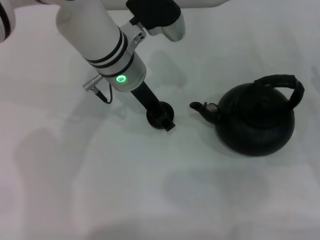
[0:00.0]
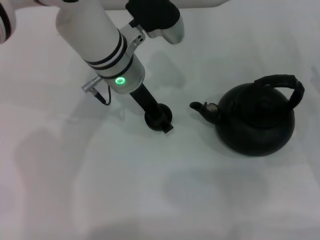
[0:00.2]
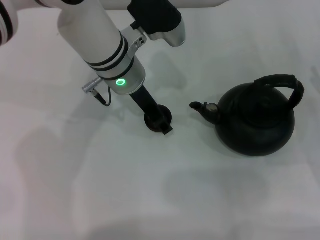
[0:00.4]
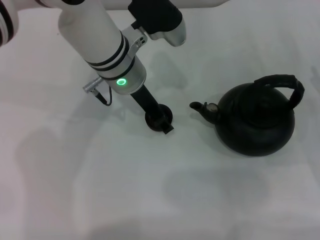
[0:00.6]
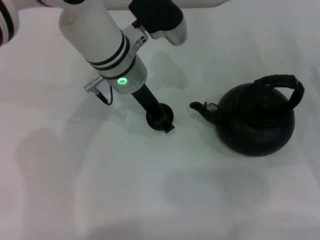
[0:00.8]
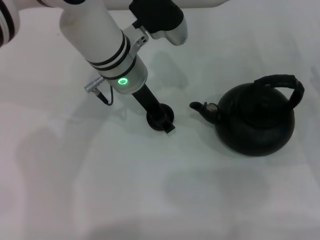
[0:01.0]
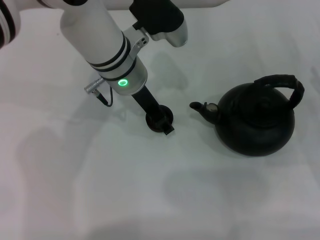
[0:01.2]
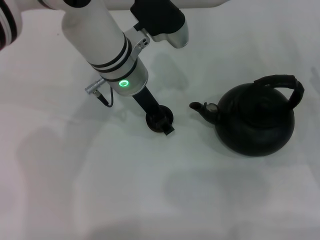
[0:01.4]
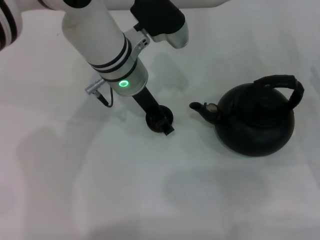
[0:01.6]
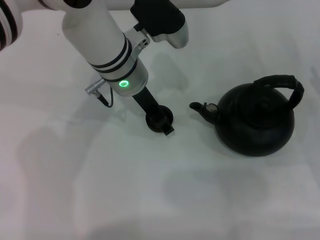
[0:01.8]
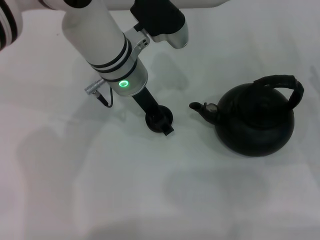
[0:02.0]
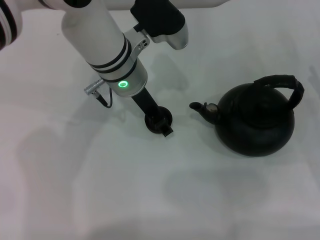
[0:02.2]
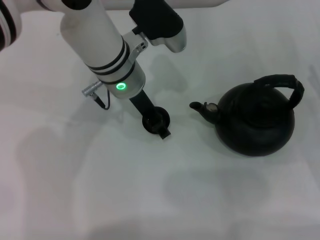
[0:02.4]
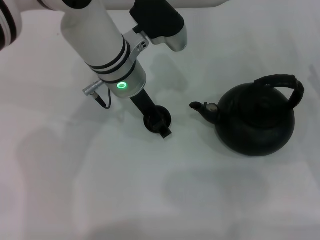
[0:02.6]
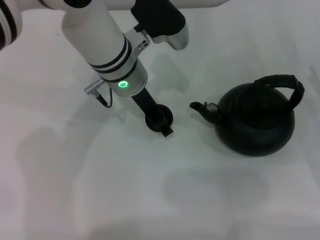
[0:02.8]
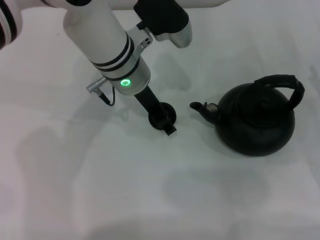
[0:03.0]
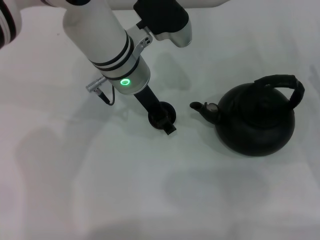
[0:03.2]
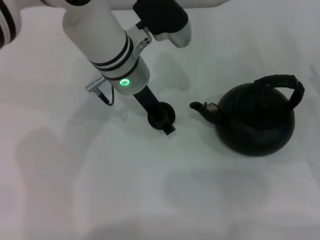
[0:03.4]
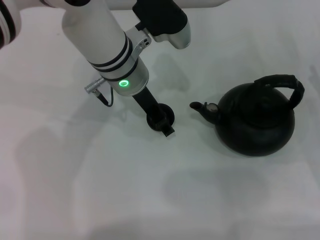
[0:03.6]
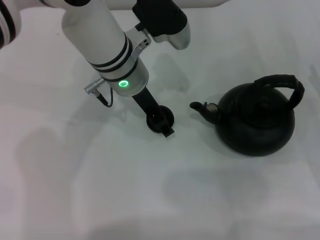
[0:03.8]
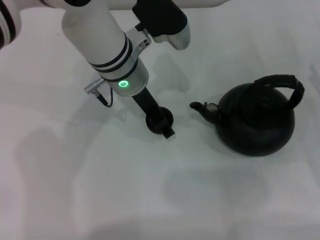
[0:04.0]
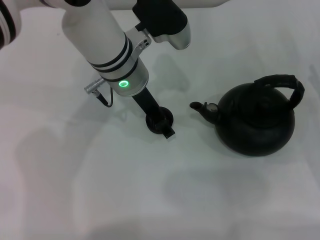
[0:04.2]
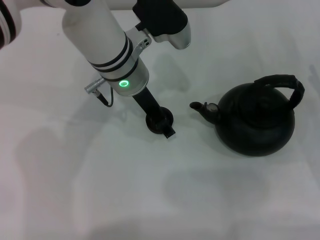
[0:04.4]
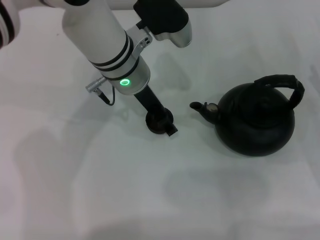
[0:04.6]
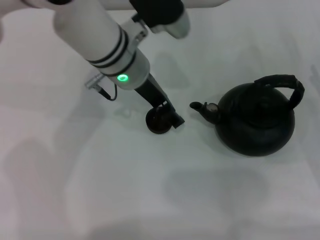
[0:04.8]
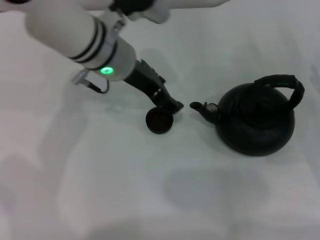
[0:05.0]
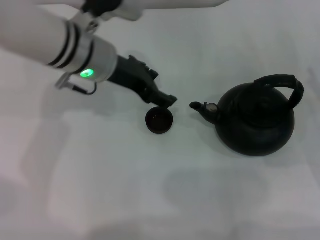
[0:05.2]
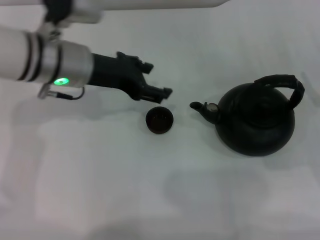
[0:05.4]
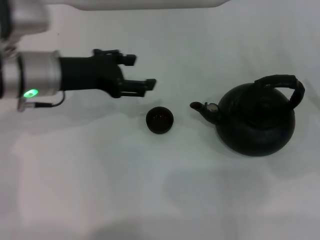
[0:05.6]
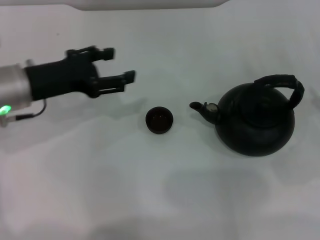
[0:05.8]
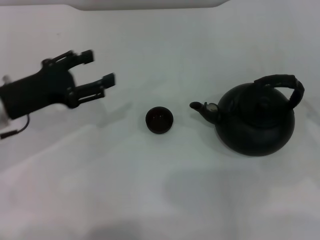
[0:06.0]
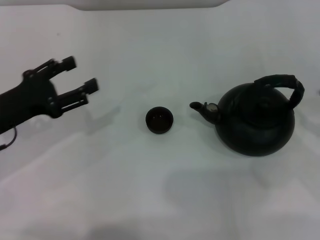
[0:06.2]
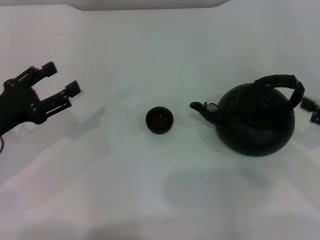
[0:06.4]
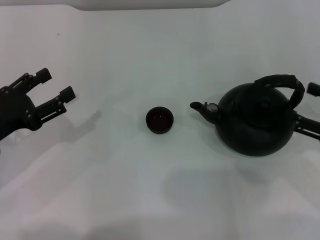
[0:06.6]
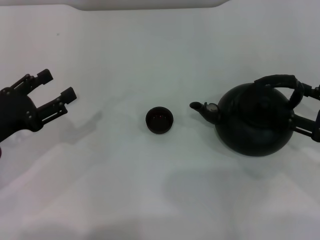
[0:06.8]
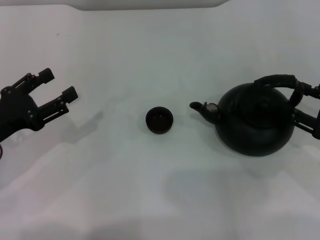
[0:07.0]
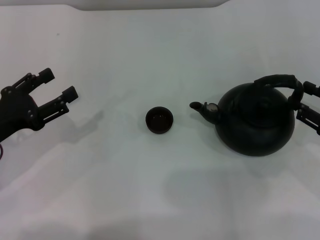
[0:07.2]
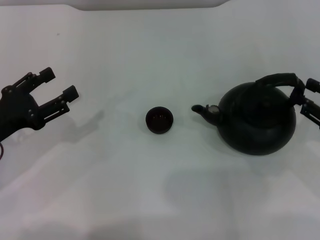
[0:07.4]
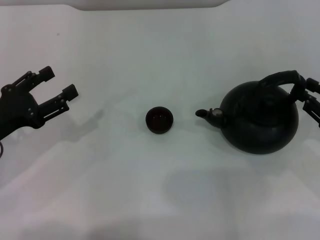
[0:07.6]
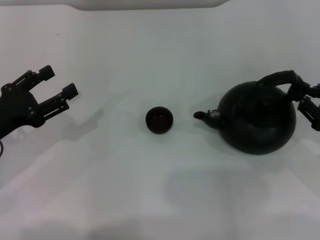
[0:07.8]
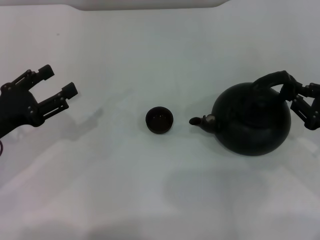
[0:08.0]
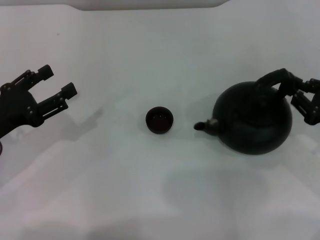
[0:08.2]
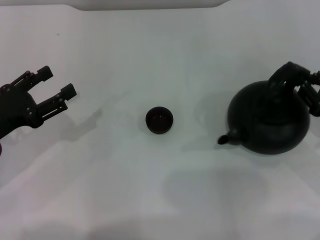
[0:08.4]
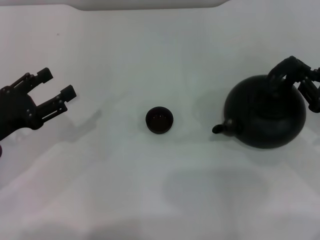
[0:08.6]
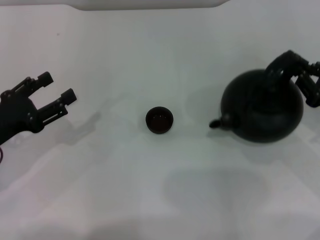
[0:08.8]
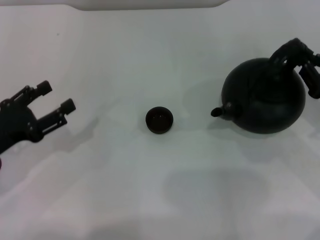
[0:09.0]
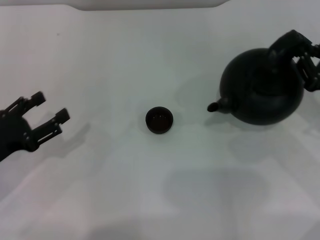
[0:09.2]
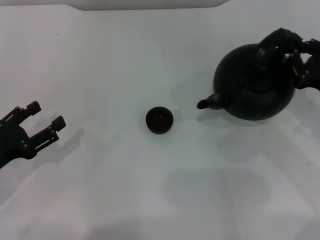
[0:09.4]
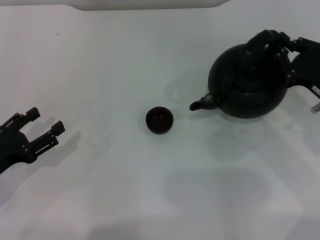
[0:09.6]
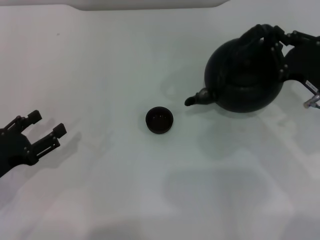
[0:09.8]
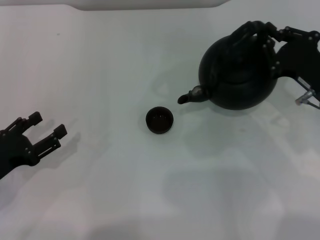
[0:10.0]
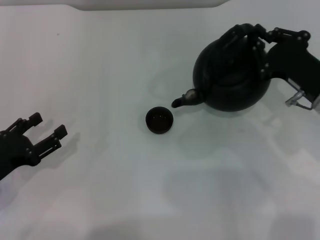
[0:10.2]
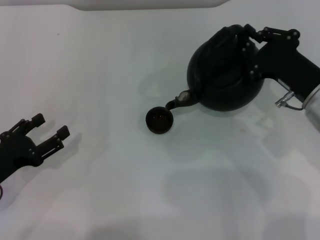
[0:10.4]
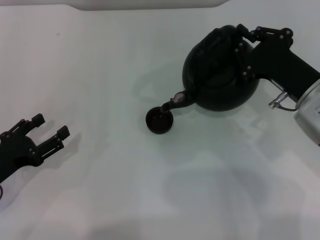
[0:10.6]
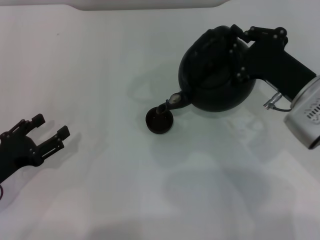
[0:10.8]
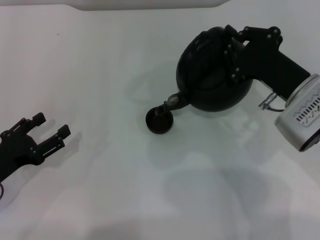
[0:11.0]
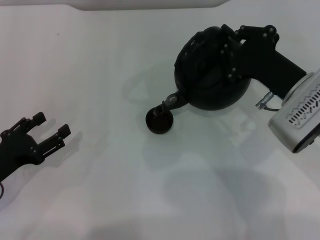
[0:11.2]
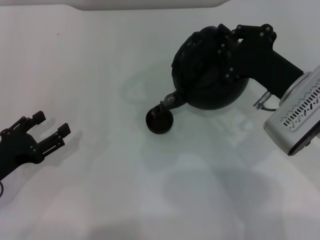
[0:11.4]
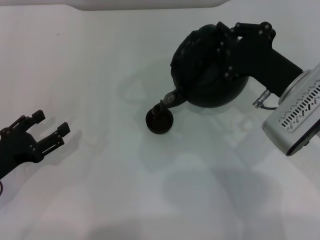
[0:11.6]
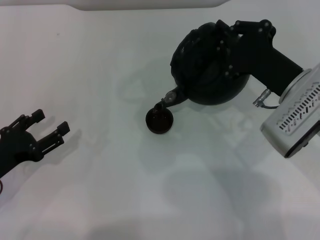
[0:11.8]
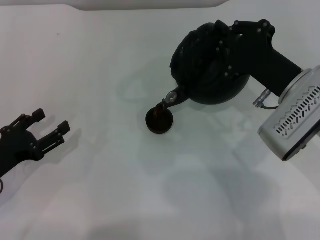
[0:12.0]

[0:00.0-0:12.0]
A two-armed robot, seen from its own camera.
Task of the whole recording: Grasp the handle of the teapot with one hand and pour tea into the teacup.
Step, 0.0 to 5.2 s: Place the teacup in the center of view with the left gripper.
Step, 5.6 to 9.0 s: Pick up the teapot with the right gripper.
0.0 to 3.0 s: The two grippers keep their place.
3.0 to 4.4 s: The left gripper opens its fingers.
4.4 to 6.0 s: The right gripper moves roughly 5 cm. The left gripper goes roughly 20 cm to the left and backward.
6.0 to 7.6 s: The left gripper changes place by some 5 cm. Meanwhile the right gripper closes.
7.6 to 9.0 s: There are only small adjustments of the grippers.
9.0 to 10.4 s: The right gripper heads to the left, covering some 10 cm.

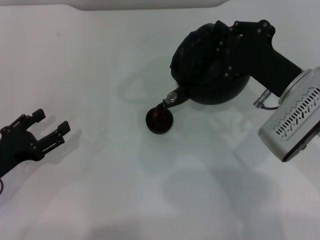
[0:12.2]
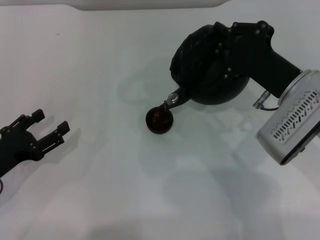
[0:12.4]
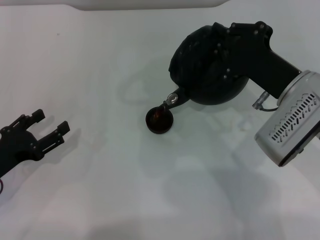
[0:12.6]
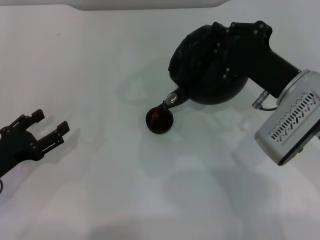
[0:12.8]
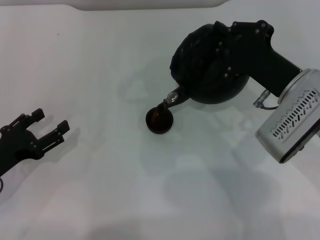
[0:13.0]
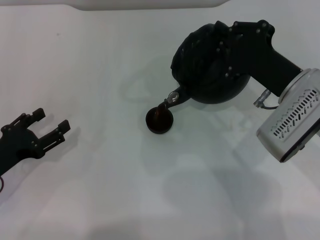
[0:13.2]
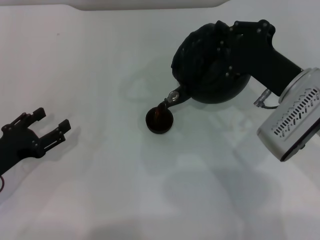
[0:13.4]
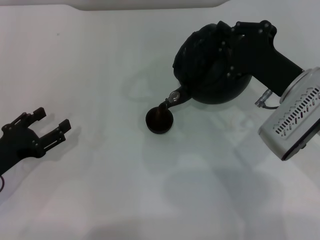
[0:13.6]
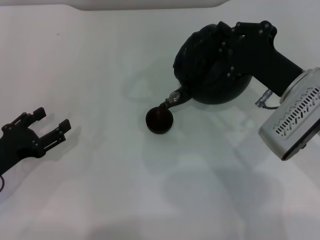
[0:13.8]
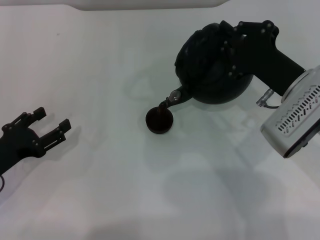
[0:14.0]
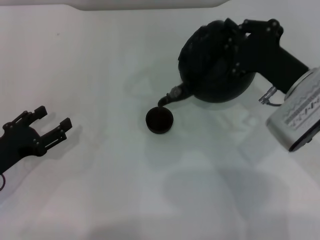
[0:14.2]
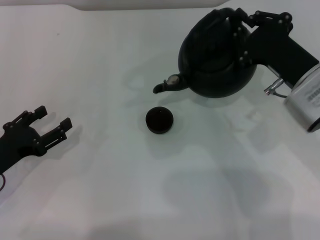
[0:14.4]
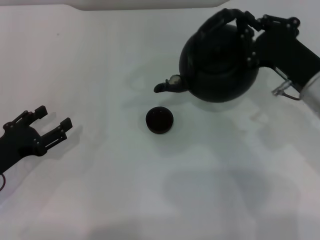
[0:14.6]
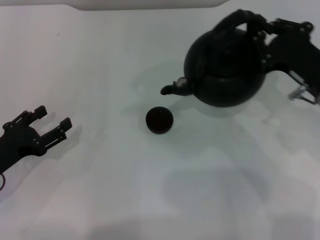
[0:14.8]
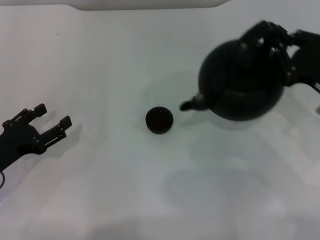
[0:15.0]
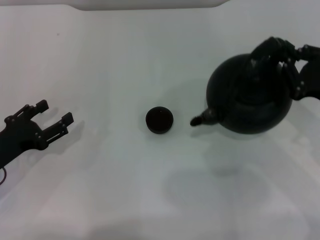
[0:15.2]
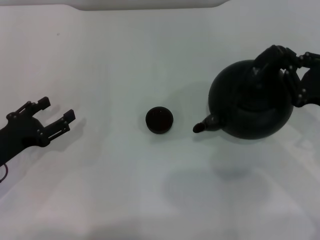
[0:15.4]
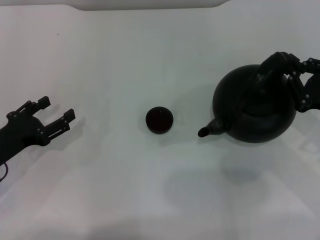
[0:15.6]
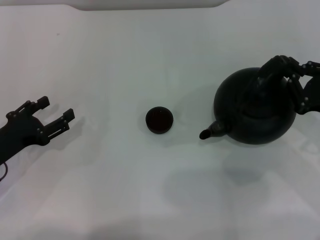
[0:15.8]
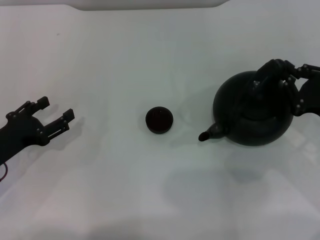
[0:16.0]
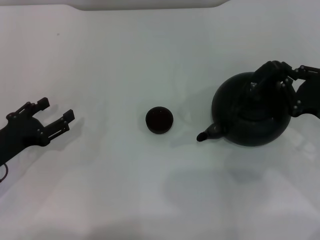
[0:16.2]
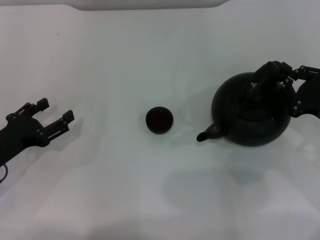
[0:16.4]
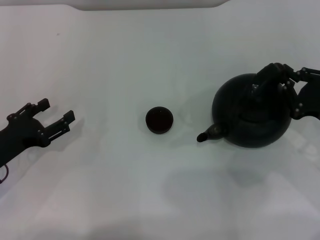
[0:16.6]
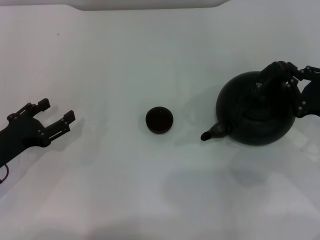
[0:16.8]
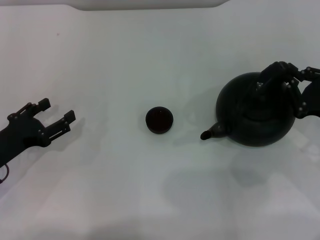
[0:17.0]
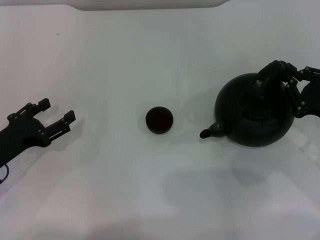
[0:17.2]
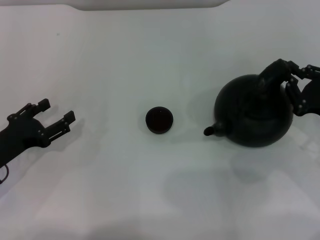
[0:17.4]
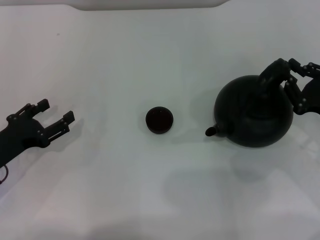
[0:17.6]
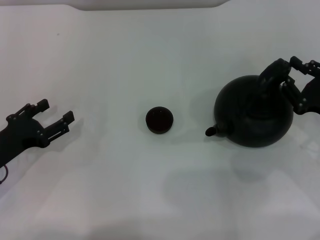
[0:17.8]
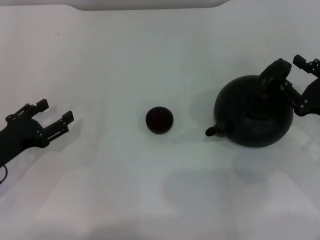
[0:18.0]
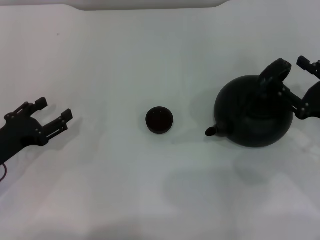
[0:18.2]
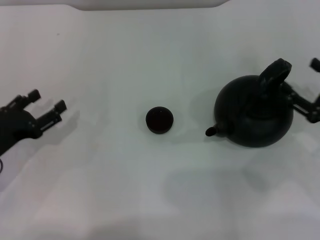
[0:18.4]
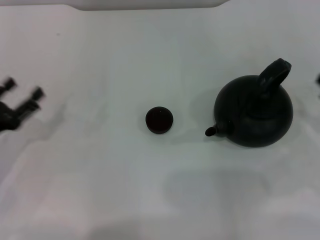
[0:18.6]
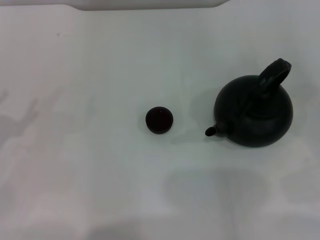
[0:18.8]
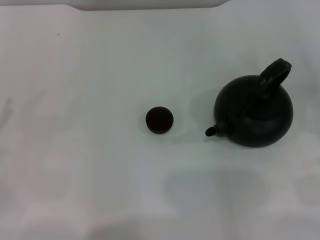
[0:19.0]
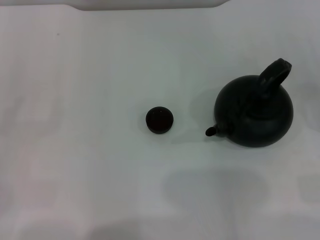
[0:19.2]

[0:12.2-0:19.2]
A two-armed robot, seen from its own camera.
Task of the whole recording: Grasp the handle of the teapot with one hand and pour tea into the teacup.
Step, 12.2 to 14.6 s: Pour tea into the teacup with the right gripper.
Step, 14.8 to 18.2 s: Put down the teapot with the right gripper.
12.2 to 13.6 s: Neither gripper changes place.
13.6 to 15.0 s: The right gripper is displaced to the right by roughly 10 cm.
15.0 to 16.4 s: The right gripper moves downward, some 5 cm.
16.4 to 17.8 s: The two grippers keep their place.
17.8 to 19.2 s: The right gripper heads to the right and backward, covering roughly 10 cm, and opens its fingers, while the left gripper is displaced to the left and backward by roughly 10 cm.

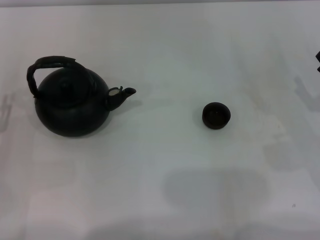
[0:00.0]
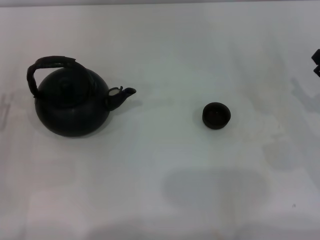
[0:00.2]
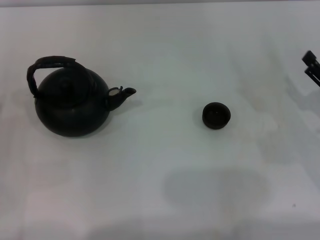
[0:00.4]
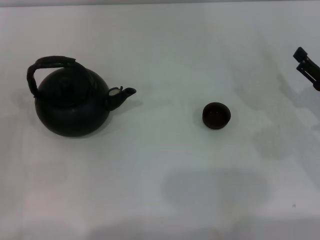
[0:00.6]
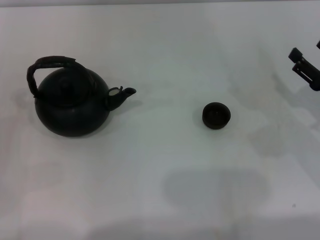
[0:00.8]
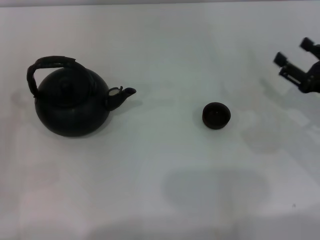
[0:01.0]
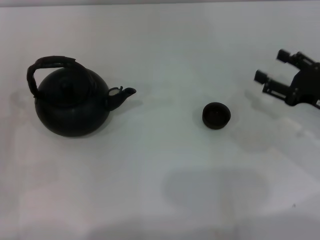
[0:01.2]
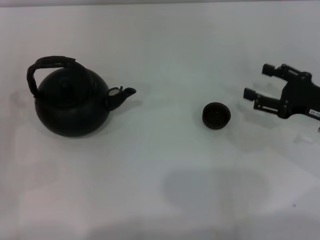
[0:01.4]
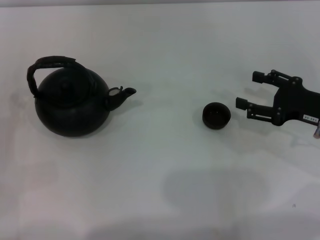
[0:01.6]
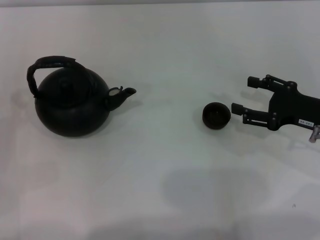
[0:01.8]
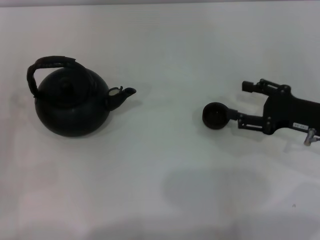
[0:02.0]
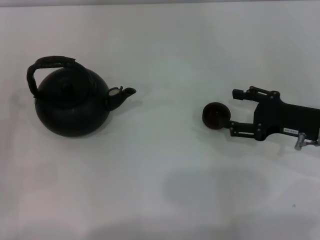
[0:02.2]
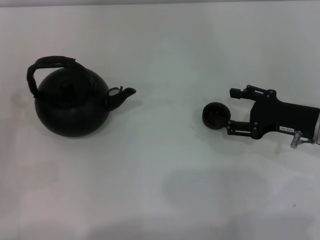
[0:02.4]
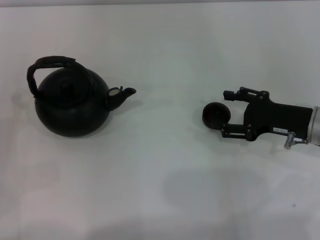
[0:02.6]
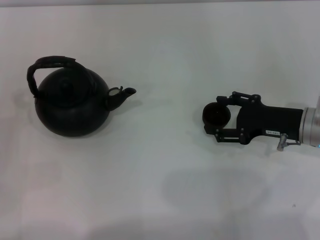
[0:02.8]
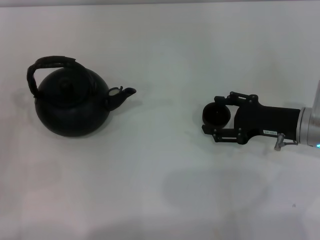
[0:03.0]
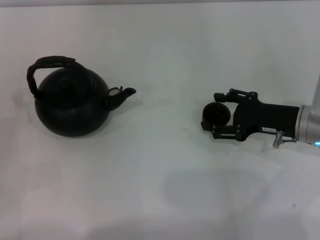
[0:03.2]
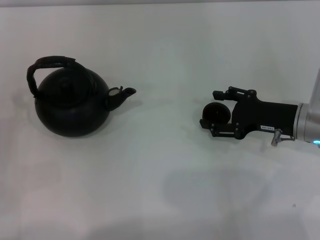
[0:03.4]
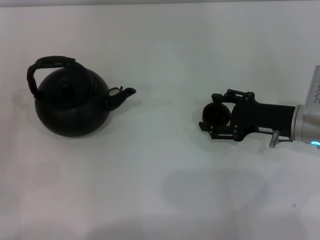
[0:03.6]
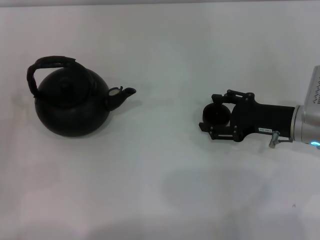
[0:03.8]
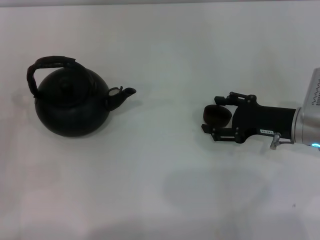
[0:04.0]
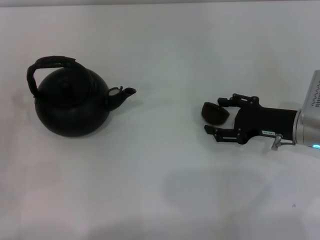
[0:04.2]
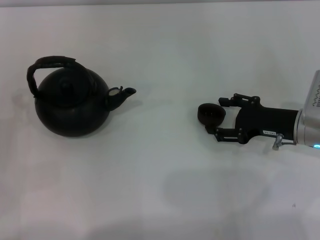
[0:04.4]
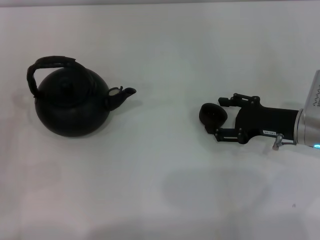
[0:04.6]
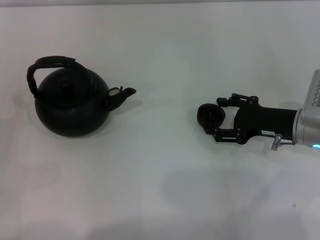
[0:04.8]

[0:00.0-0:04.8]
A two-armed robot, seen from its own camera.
Task of the whole recording: Grasp the handle of the teapot with one hand and pour tea into the teacup.
0.0 to 1.6 s: The right gripper ends up roughly 5 cm from where it was.
1.6 to 3.2 s: The right gripper is displaced to the left by about 5 cm.
3.2 to 4.8 s: The two grippers keep their place.
